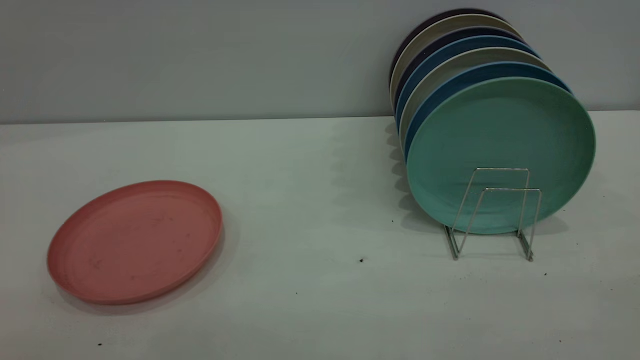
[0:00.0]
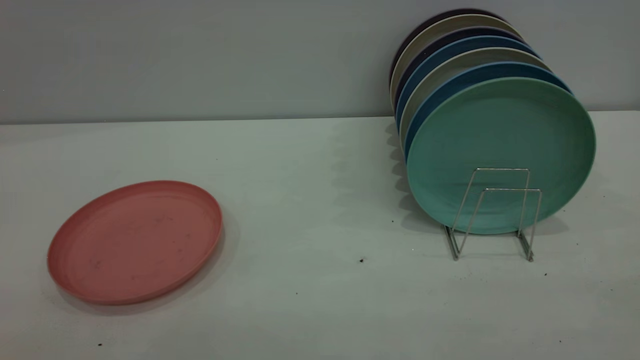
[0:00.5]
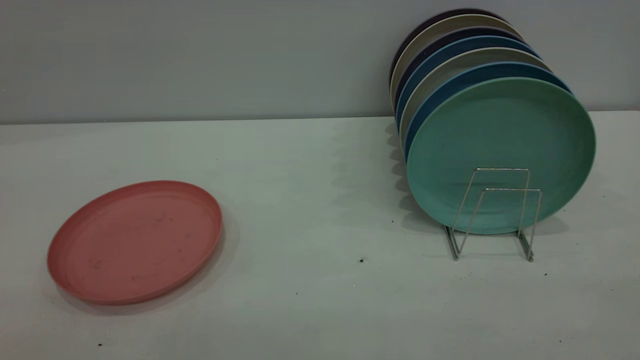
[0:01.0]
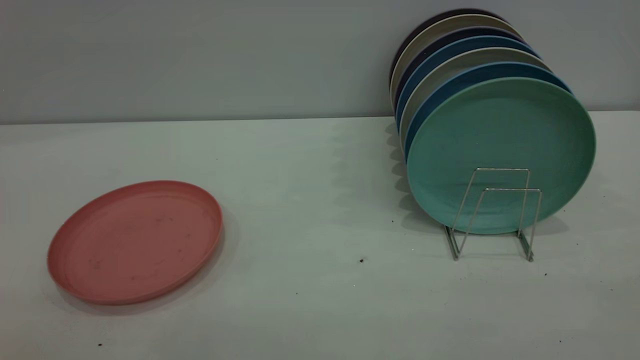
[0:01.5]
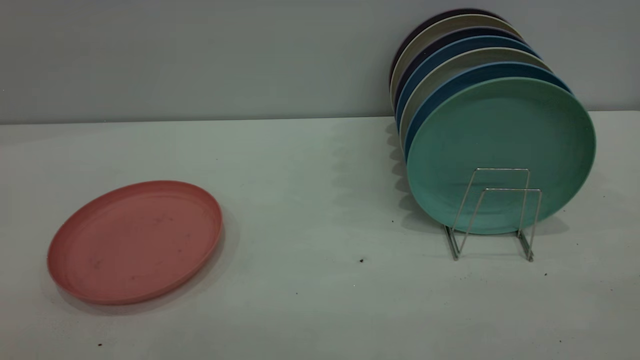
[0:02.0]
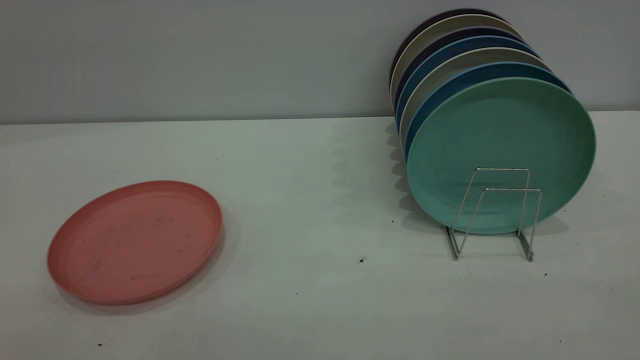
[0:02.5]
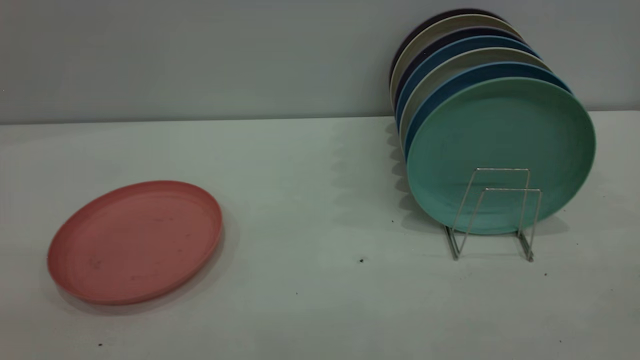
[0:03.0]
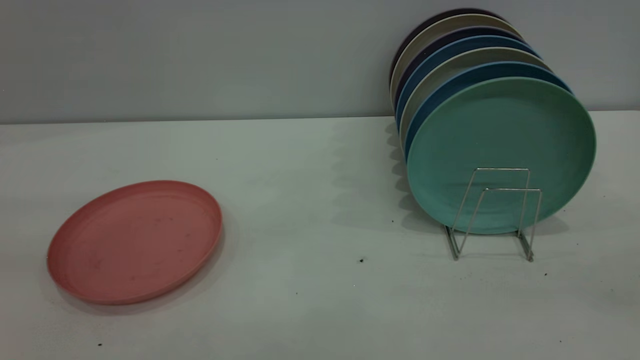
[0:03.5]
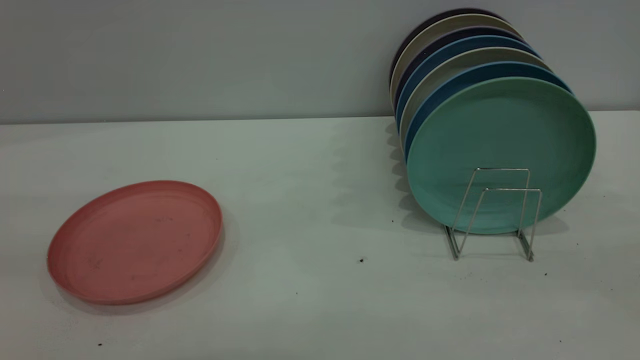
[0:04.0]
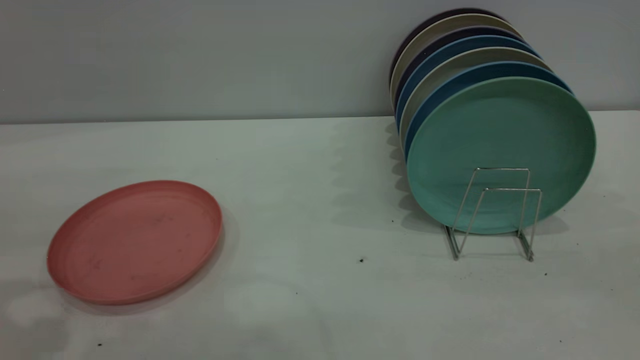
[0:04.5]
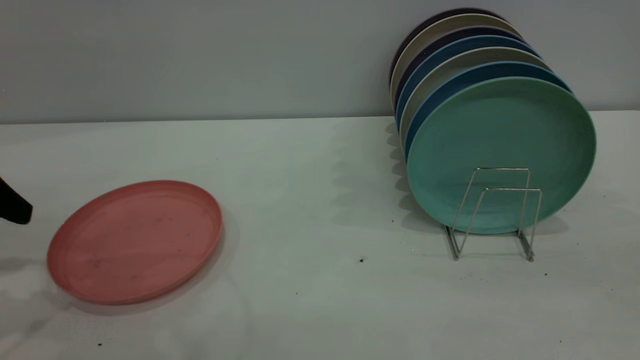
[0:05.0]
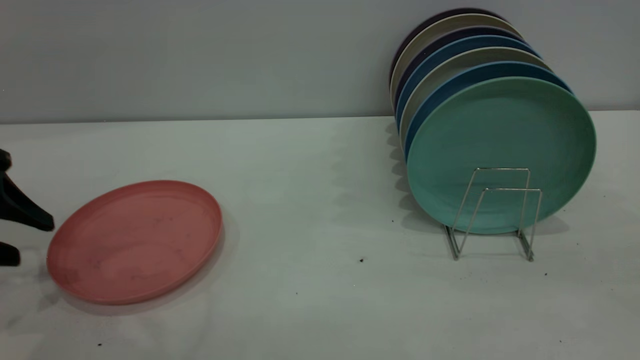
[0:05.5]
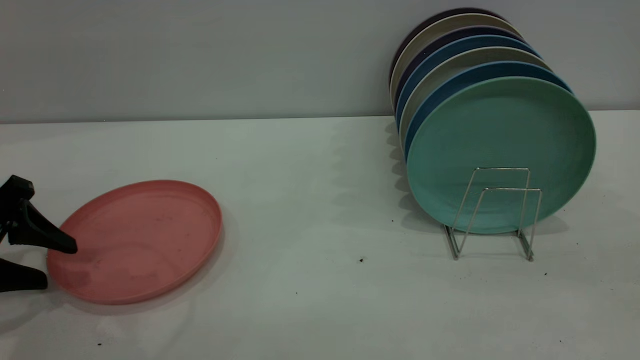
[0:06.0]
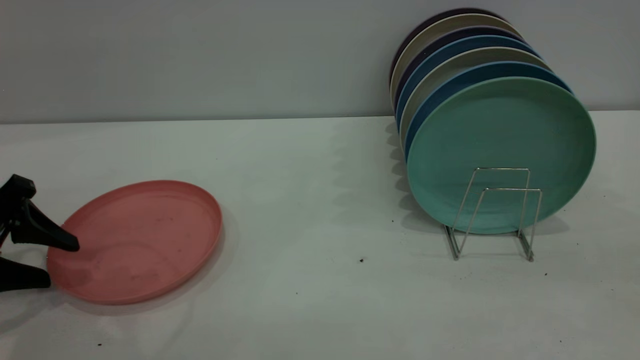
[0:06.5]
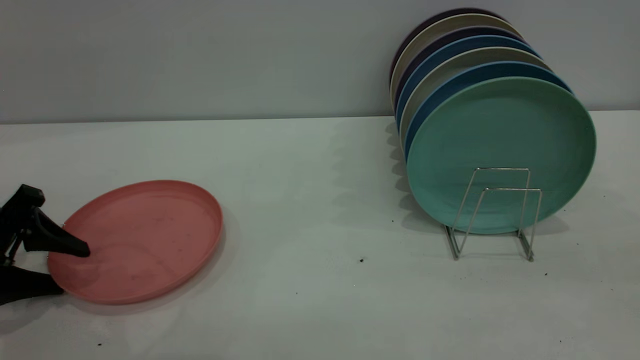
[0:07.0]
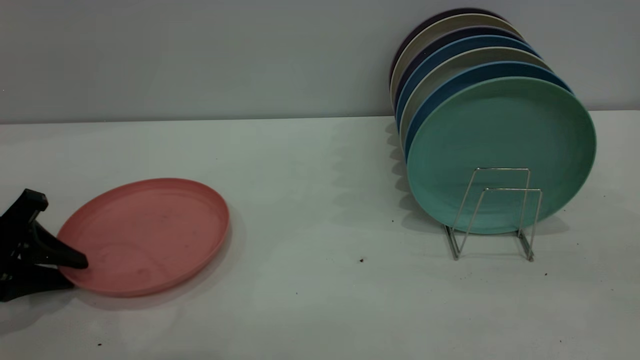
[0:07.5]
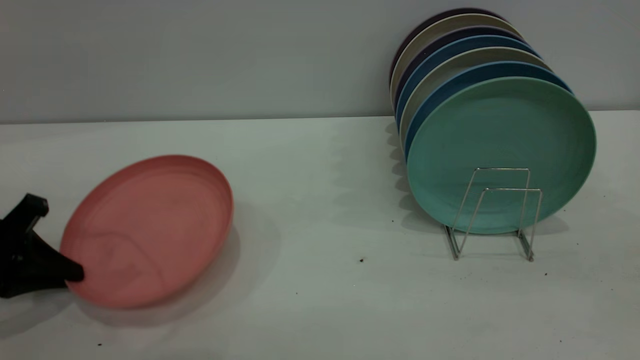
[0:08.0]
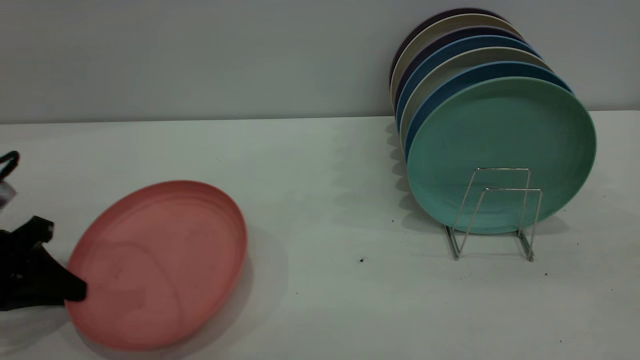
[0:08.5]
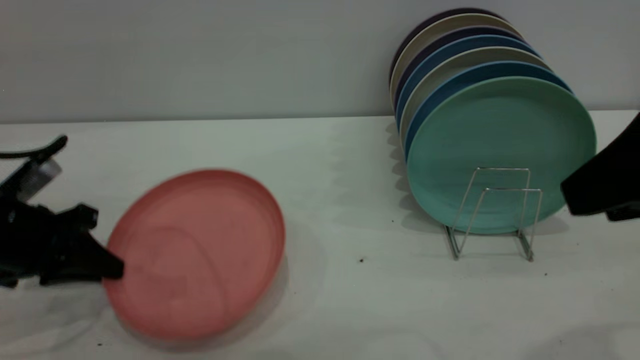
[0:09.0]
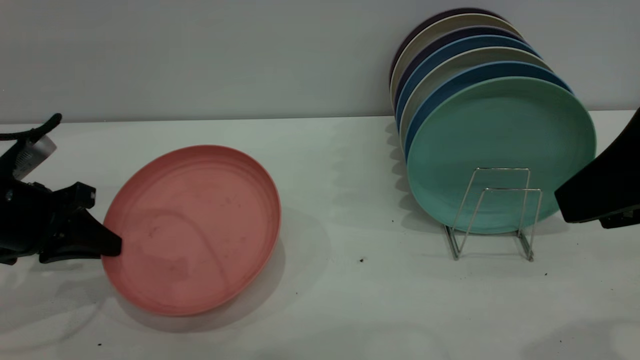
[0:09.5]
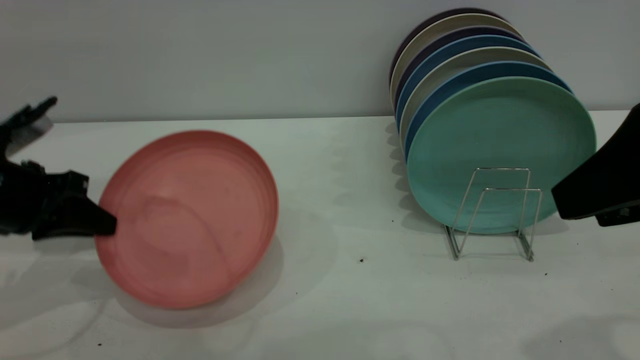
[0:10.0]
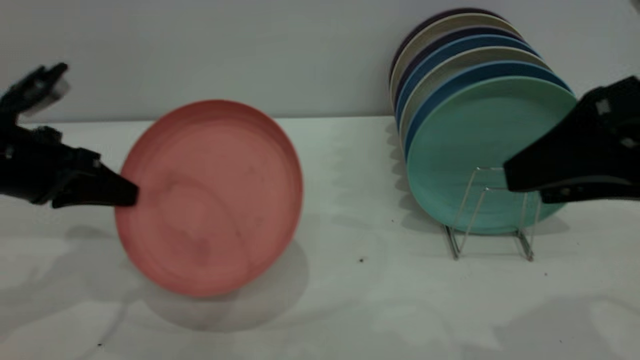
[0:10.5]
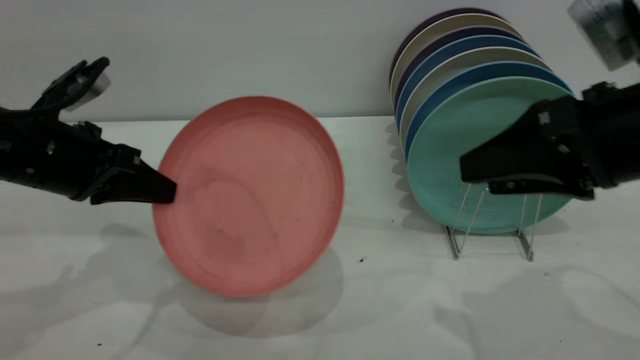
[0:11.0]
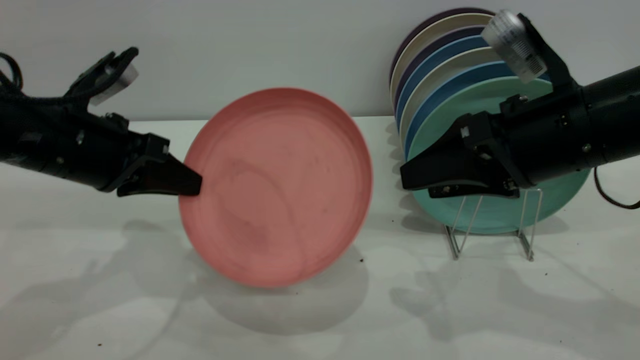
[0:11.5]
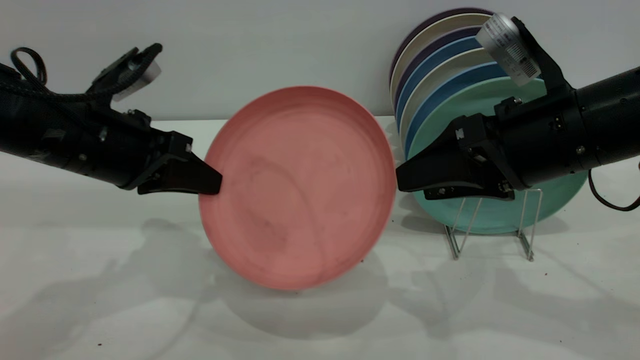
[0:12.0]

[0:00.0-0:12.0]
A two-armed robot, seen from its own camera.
Task of the whole recording: put the plate on the plate rack.
Step, 0:00.0 to 0:08.0: Pick up the plate with the left gripper.
0:00.0 to 0:02.0: Both grippers stay about where they are.
0:04.0 to 0:06.0: The left gripper goes roughly 25 cm downward and forward.
0:06.0 to 0:08.0: The left gripper closes.
0:08.0 to 0:10.0: The left gripper shifts by some 5 cm. The right gripper shifts some 10 cm forward and downward.
0:10.0 to 0:12.0: The right gripper heads forward, downward and to the left, covering roughly 15 cm. The left gripper travels to the right by approximately 10 cm.

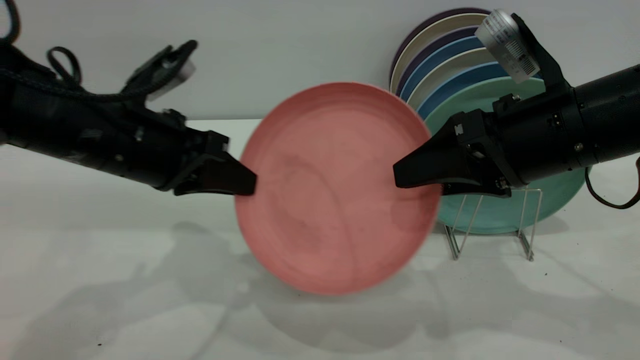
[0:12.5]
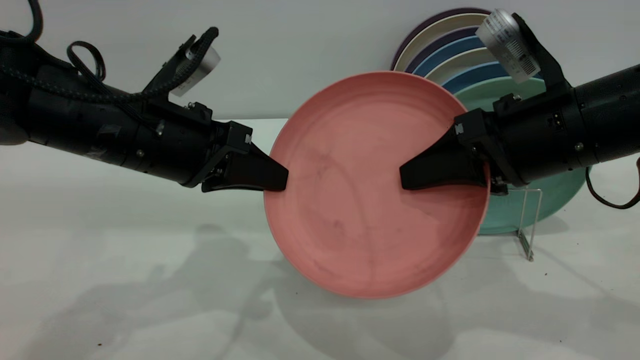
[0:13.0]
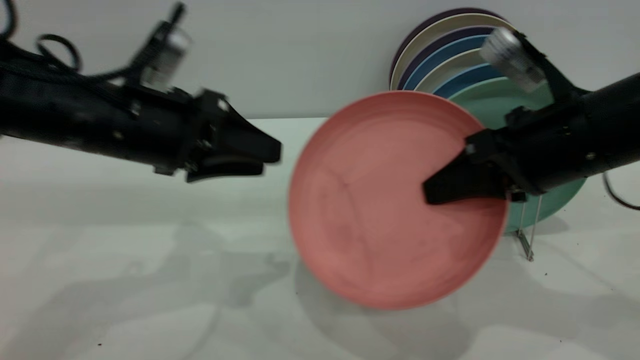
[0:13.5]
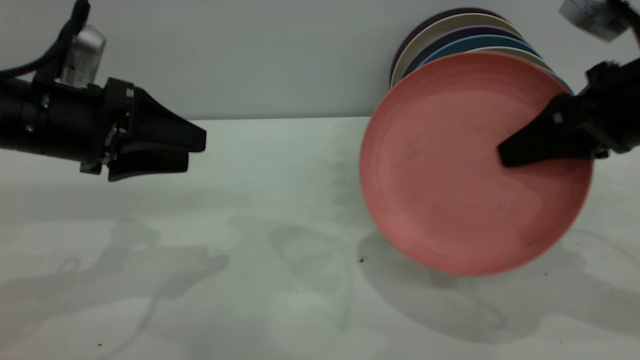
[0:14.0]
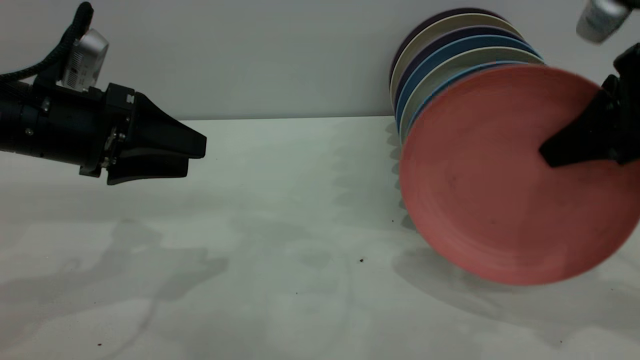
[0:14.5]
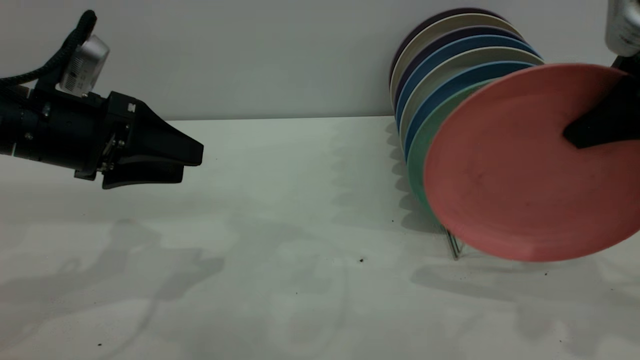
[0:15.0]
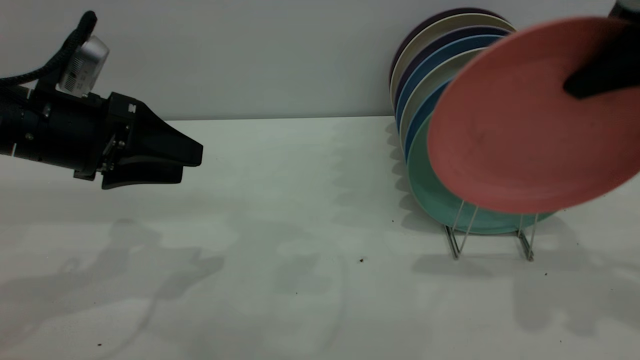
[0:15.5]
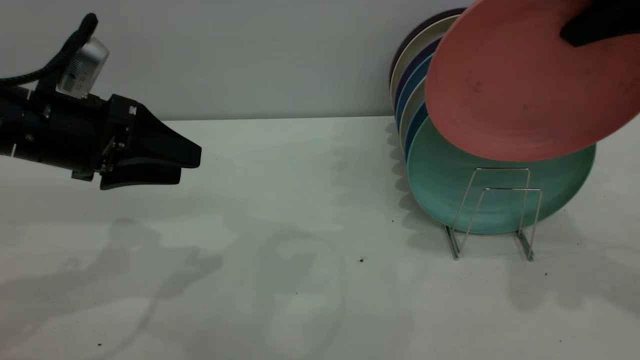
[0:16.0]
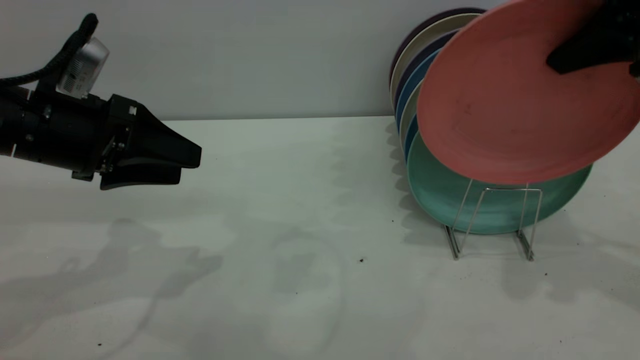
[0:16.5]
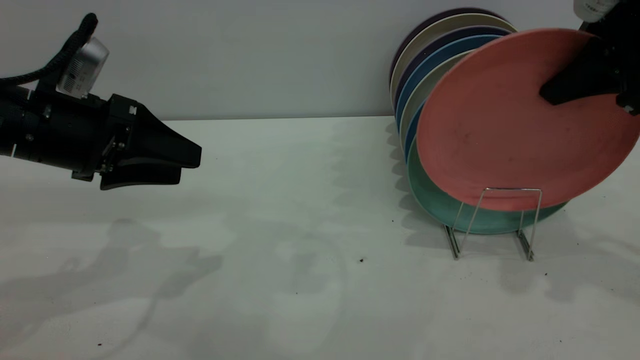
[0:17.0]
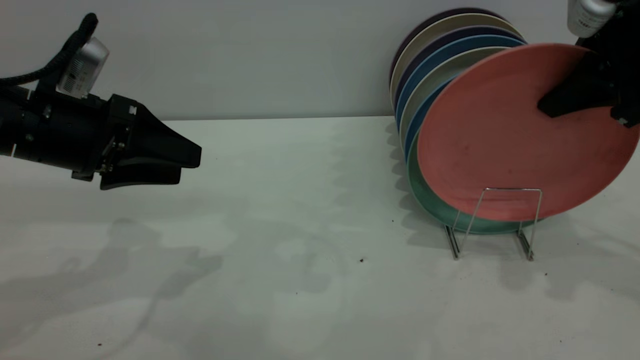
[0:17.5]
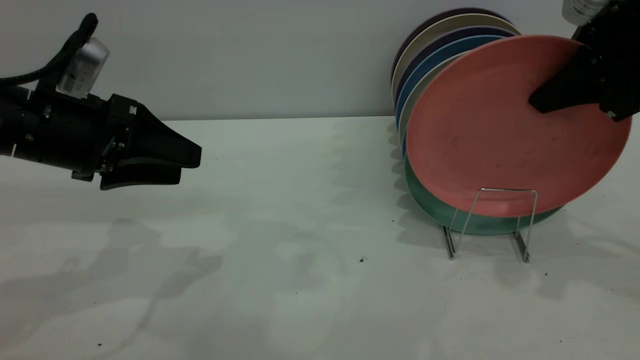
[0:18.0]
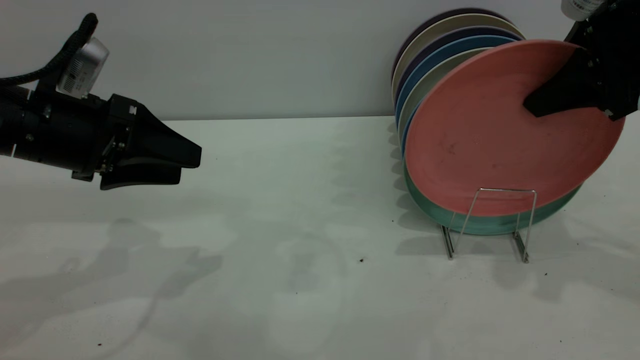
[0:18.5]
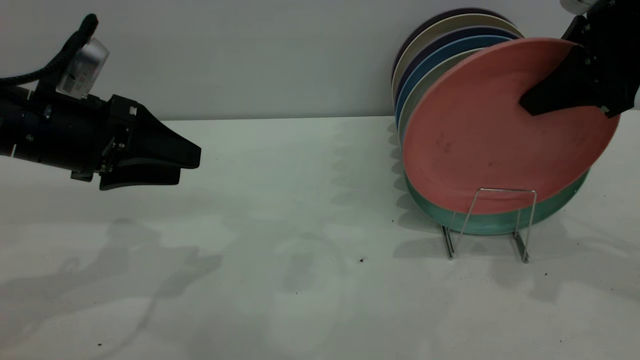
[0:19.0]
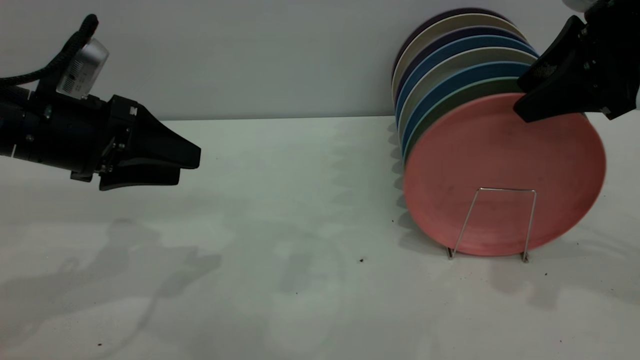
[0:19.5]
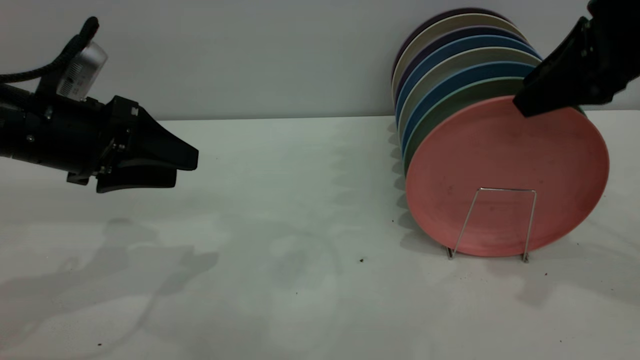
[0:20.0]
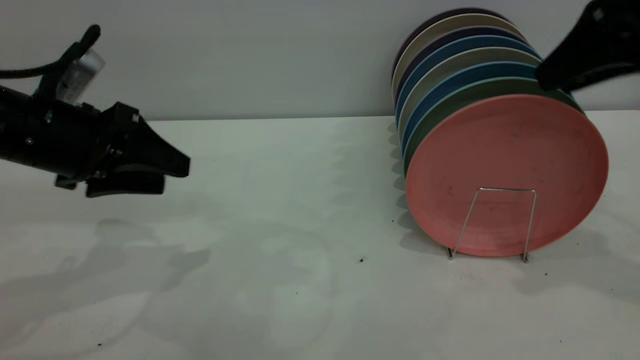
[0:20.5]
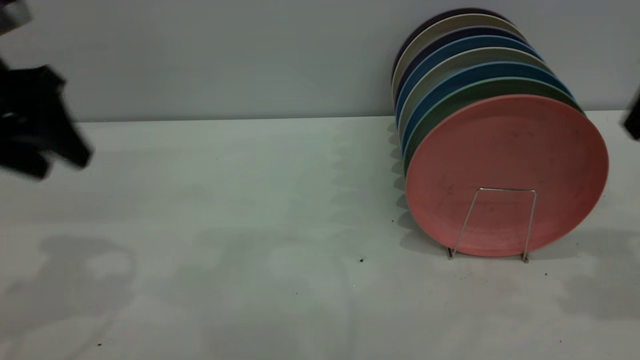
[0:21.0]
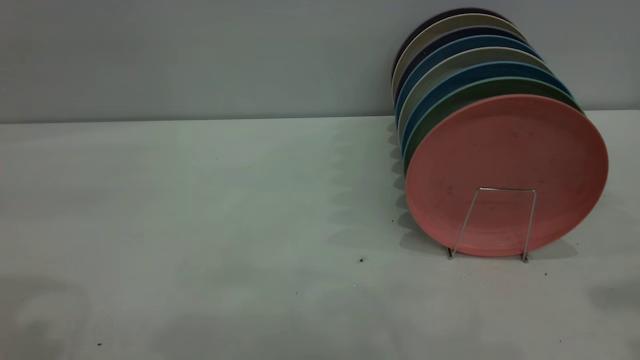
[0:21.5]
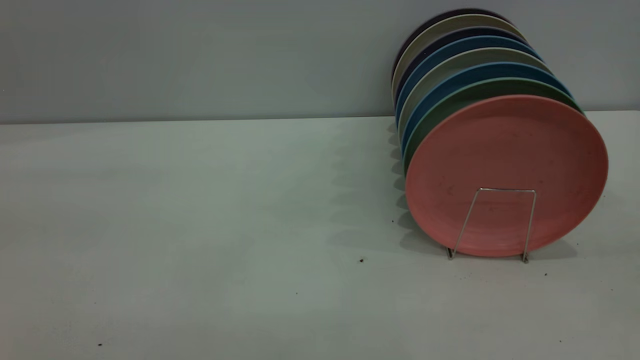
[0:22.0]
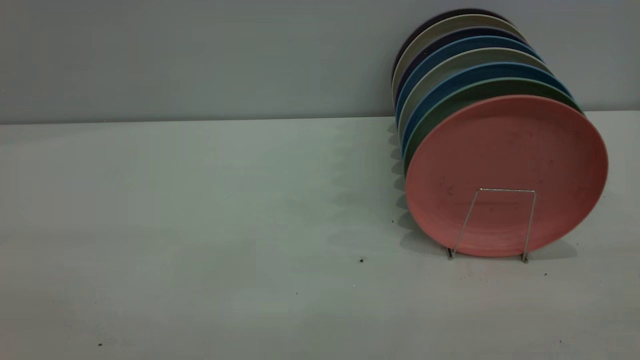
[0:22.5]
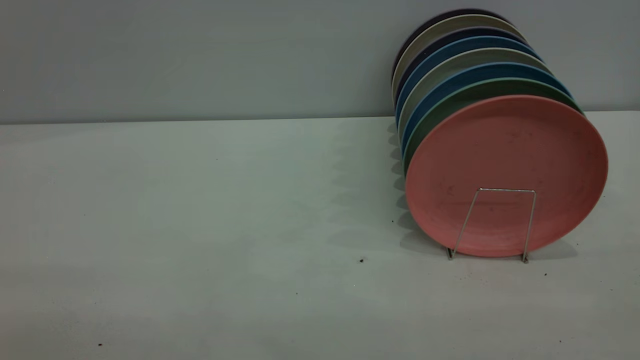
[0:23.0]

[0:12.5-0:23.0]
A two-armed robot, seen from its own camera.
Task of the whole recording: put the plate on the plate rack.
Step, 0:14.0 to 0:20.5: Place the plate on the shelf.
0:12.5 to 0:14.5: The left gripper travels to the left by about 5 cm, and opens, while the right gripper is displaced to the right and upward by some 10 cm, and closes its fingers.
0:14.5 to 0:16.5: The right gripper moves upward, some 5 cm.
0:16.5 to 0:19.0: The right gripper opens.
0:19.0 to 0:21.0: The right gripper changes place by some 5 cm. Meanwhile the left gripper shifts approximately 10 cm upward.
0:21.0 to 0:23.0: The left gripper is displaced backward by roughly 30 cm.
